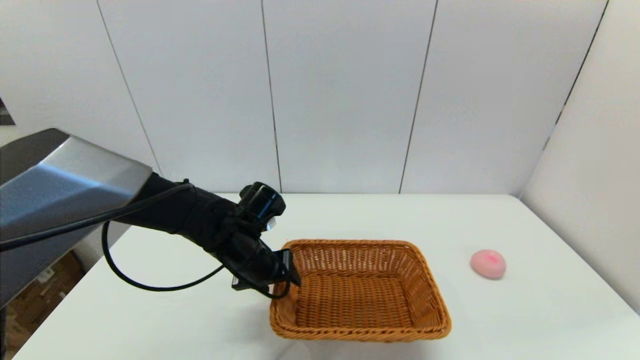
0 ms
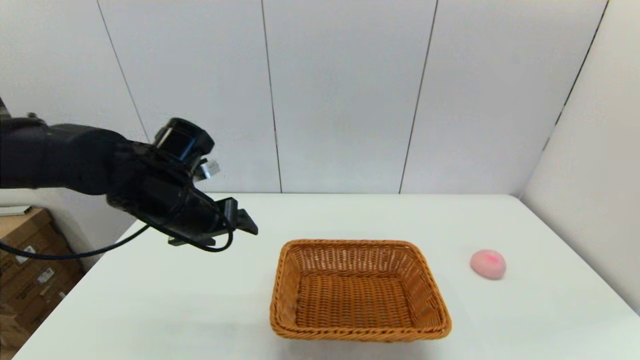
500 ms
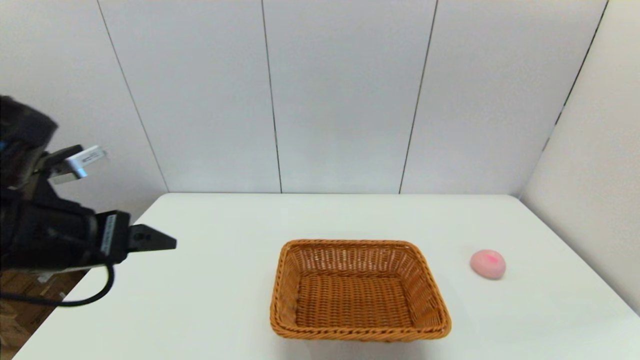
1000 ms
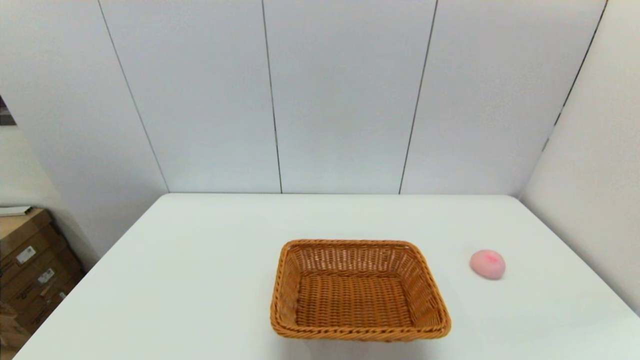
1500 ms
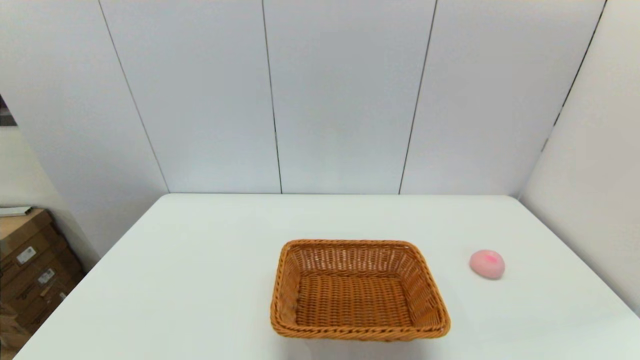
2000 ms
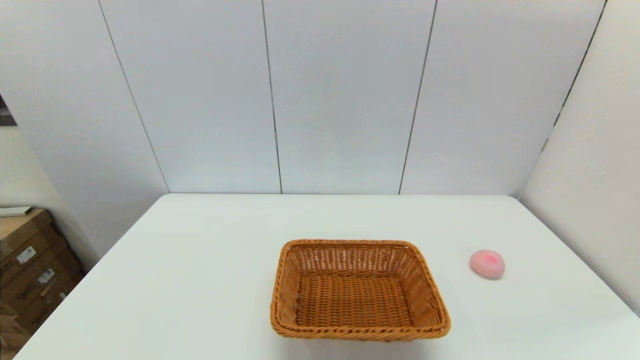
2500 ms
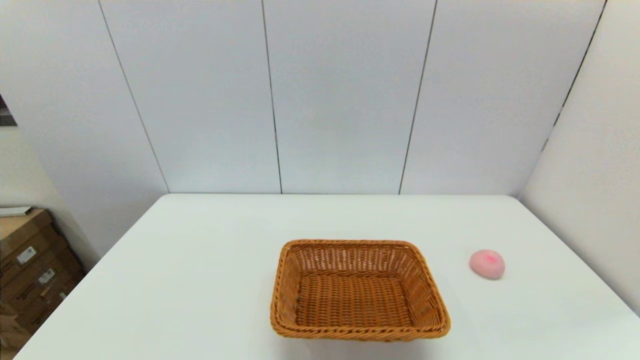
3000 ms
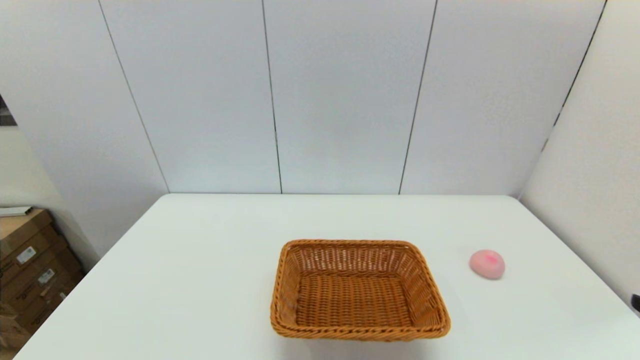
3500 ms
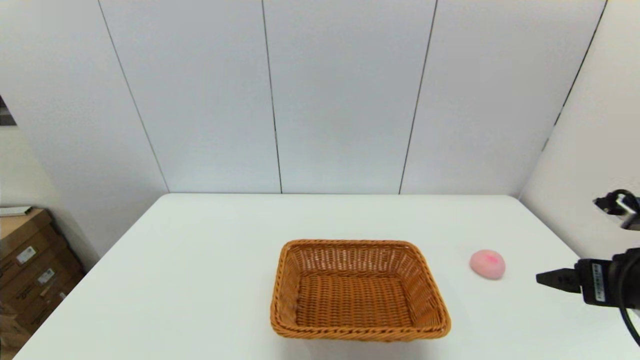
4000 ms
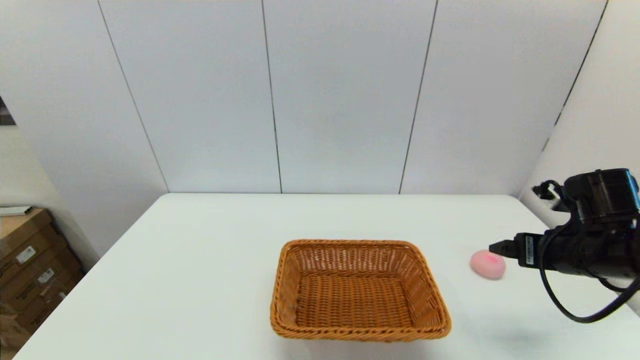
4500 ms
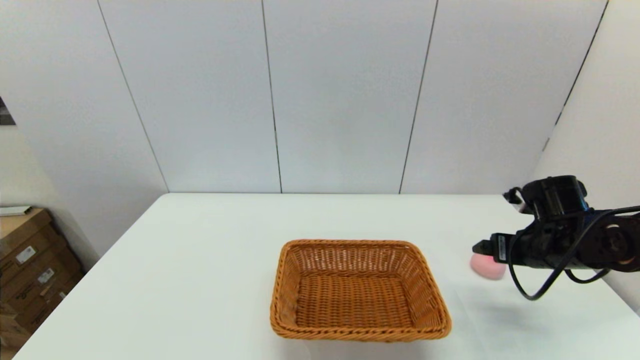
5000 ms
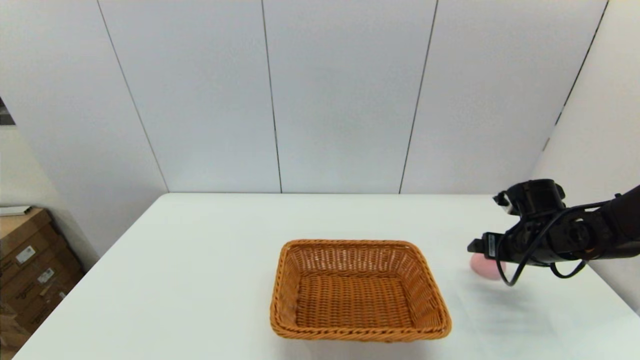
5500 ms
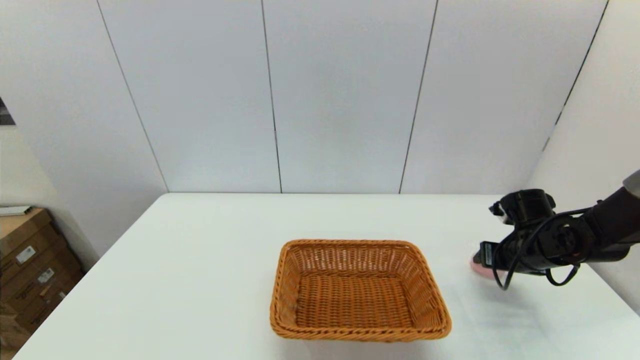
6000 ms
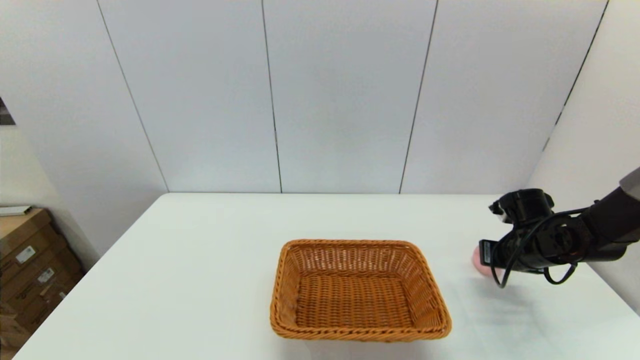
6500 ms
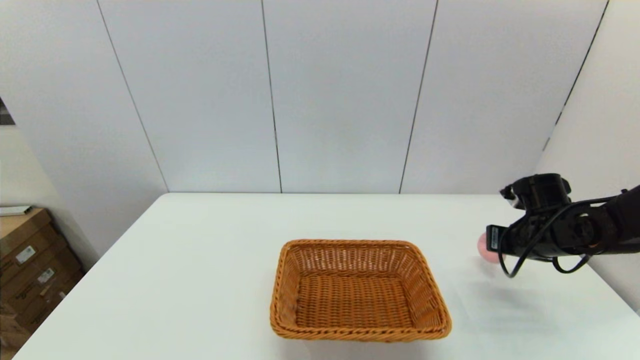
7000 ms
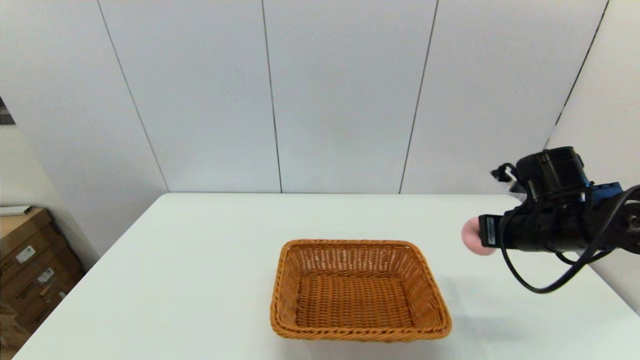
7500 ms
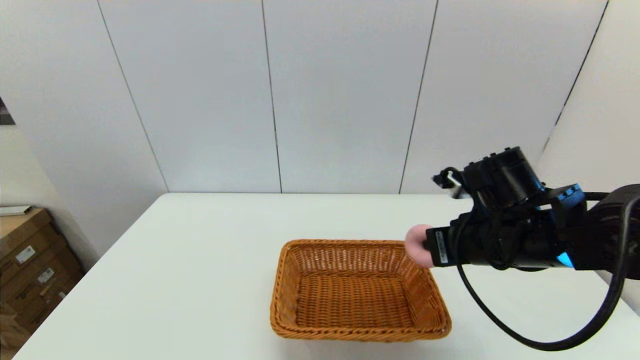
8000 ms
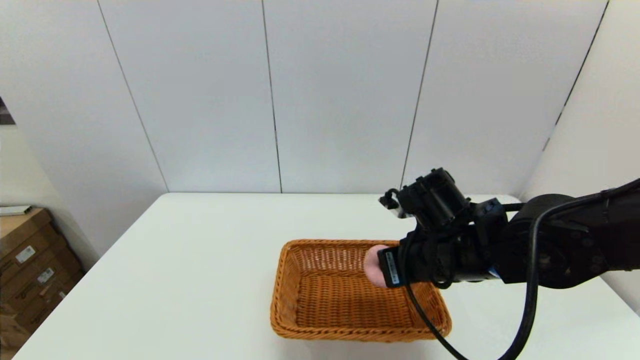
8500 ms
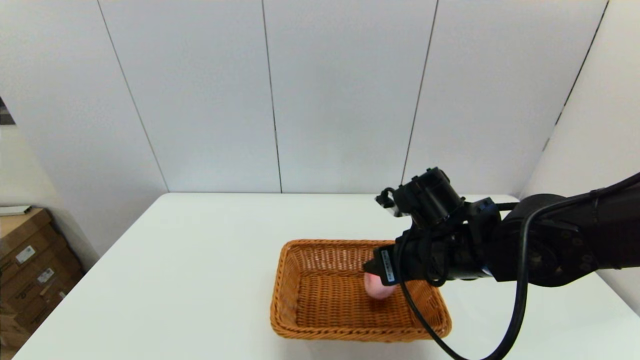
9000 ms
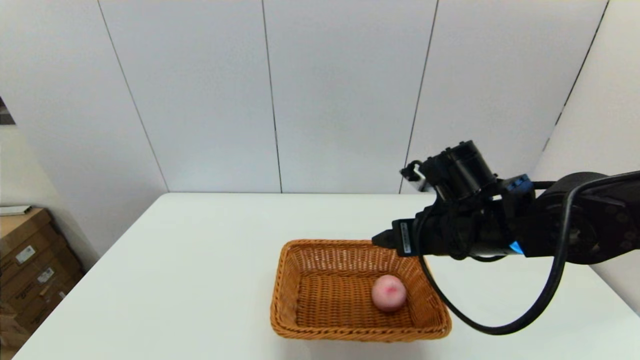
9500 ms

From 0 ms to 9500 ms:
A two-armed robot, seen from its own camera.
Step, from 500 ms to 6500 ms: Grasp the peach with the right gripper.
Step, from 7000 ms to 9000 ms: Place the peach into the light basket with the right gripper.
From 0 ms to 2000 ms: The left gripper is displaced backward and to the left by some 40 cm.
From 2000 ms to 4000 ms: The right gripper shifts roughly 25 cm forward and upward.
From 4000 ms to 5500 ms: The right gripper moves forward and downward, about 20 cm.
From 5500 ms to 7500 ms: The right gripper goes approximately 10 cm upward, to the left and backward, and closes.
From 7500 ms to 9500 ms: The right gripper moves to the left, approximately 10 cm, and opens its fingers.

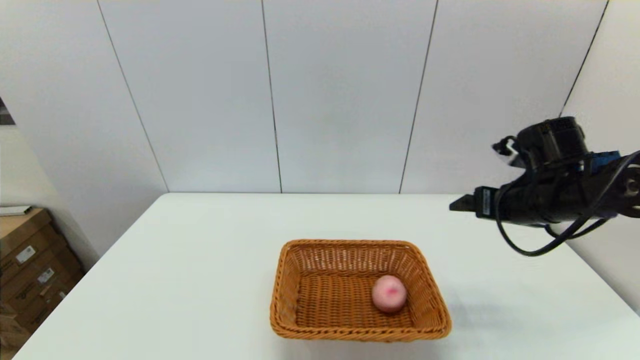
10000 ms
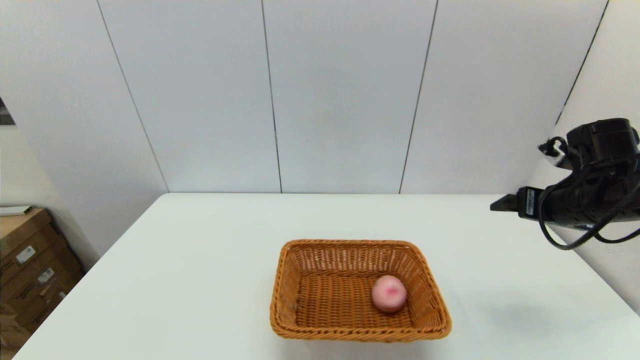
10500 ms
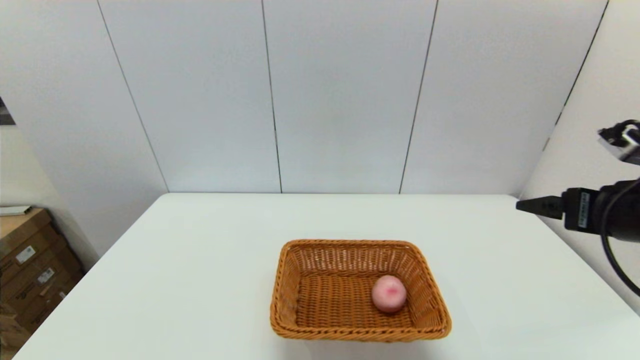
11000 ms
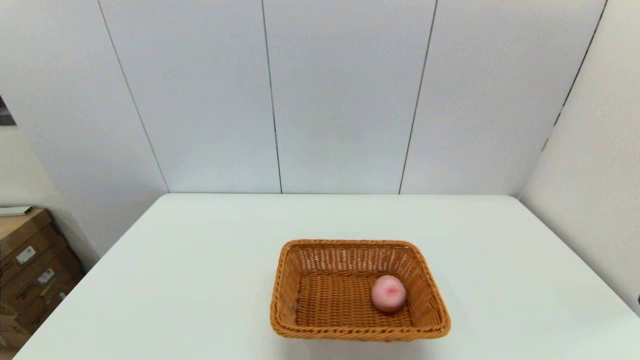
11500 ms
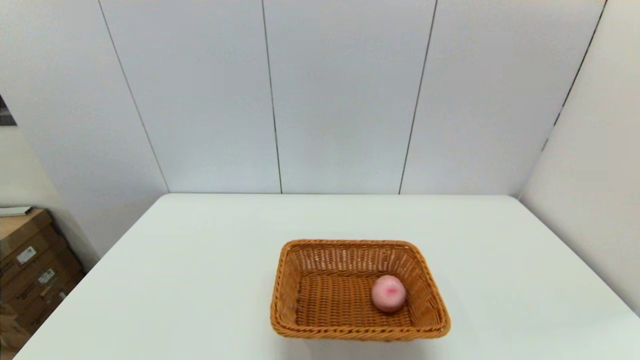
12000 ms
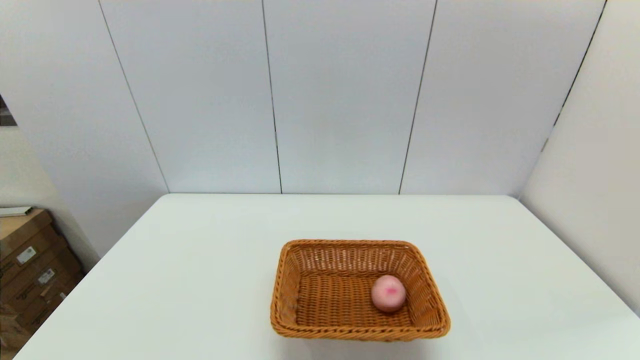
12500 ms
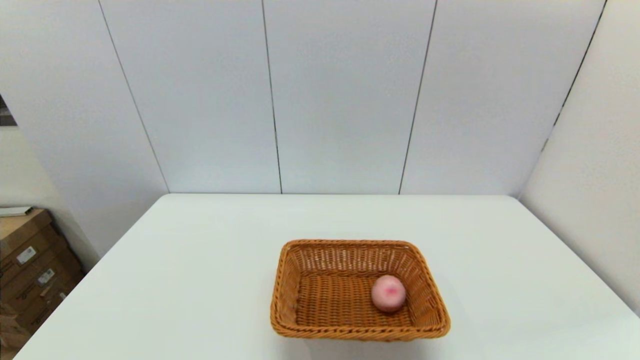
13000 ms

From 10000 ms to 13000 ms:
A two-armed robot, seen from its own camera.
From 10000 ms to 11500 ms: The right gripper is displaced backward by some 30 cm.
